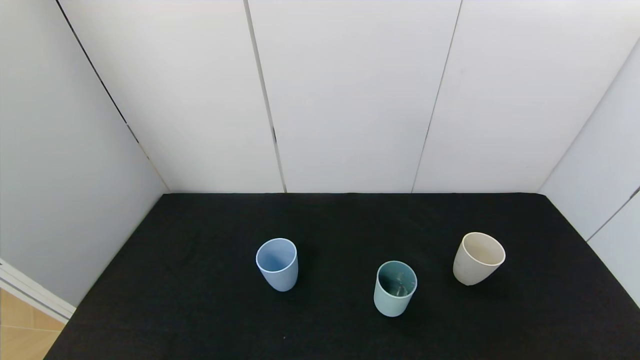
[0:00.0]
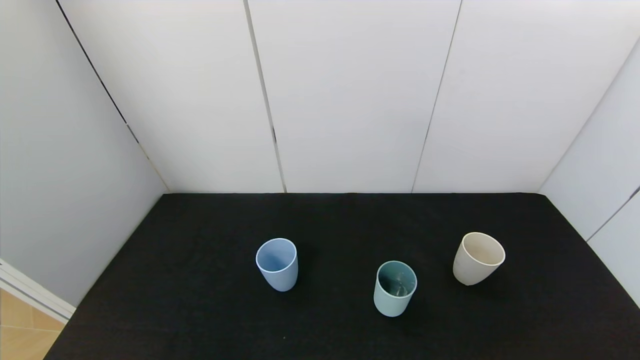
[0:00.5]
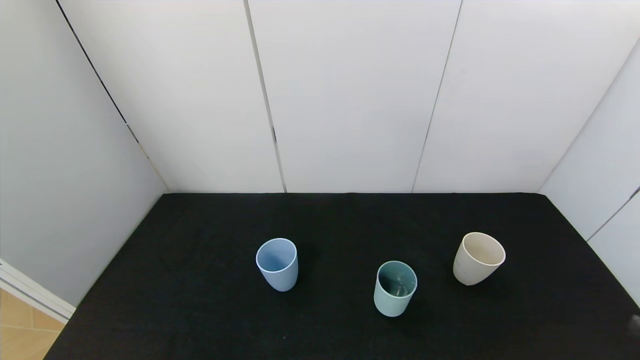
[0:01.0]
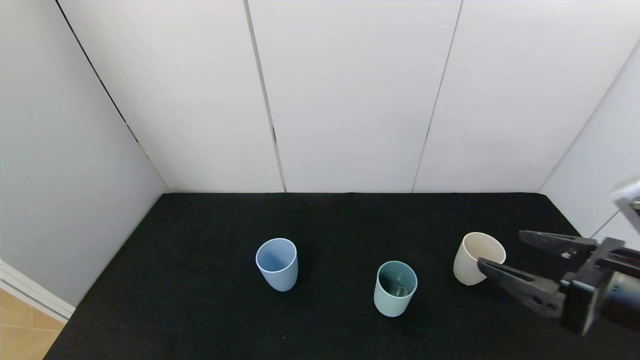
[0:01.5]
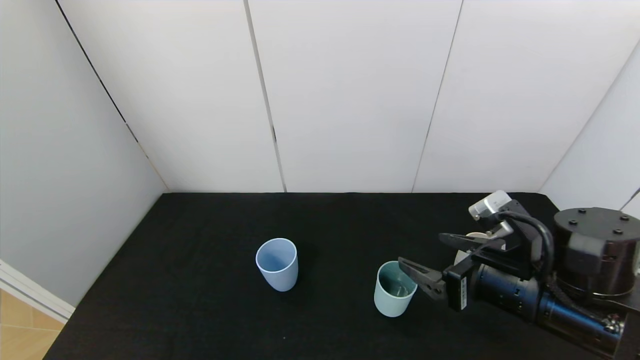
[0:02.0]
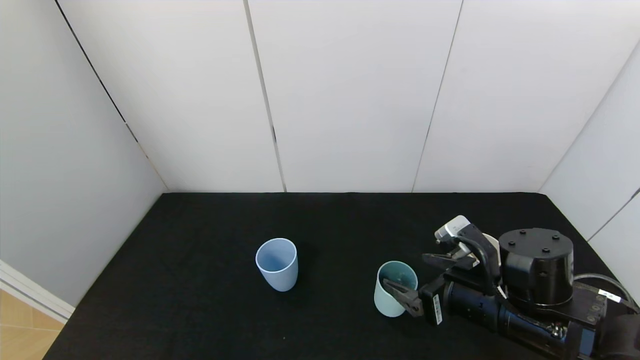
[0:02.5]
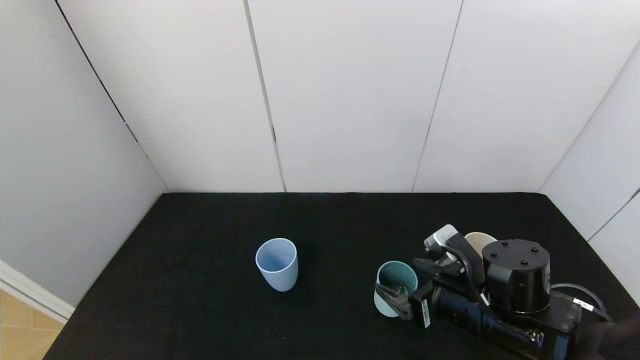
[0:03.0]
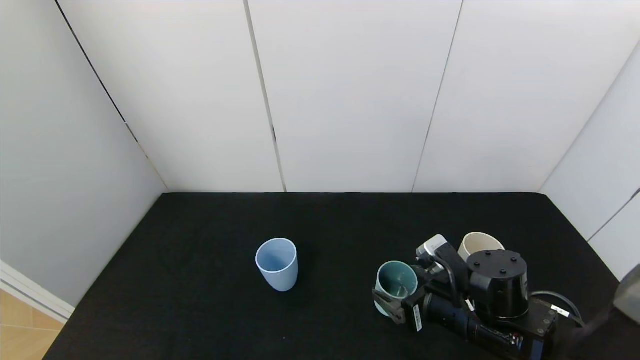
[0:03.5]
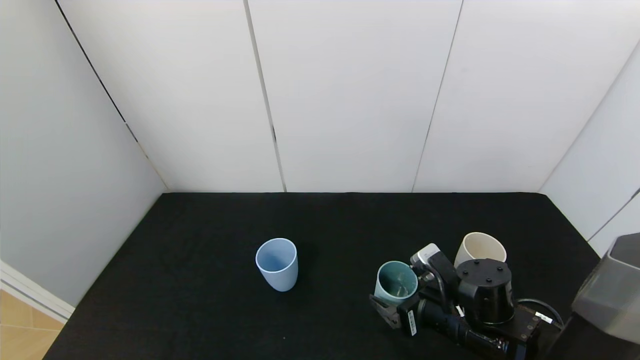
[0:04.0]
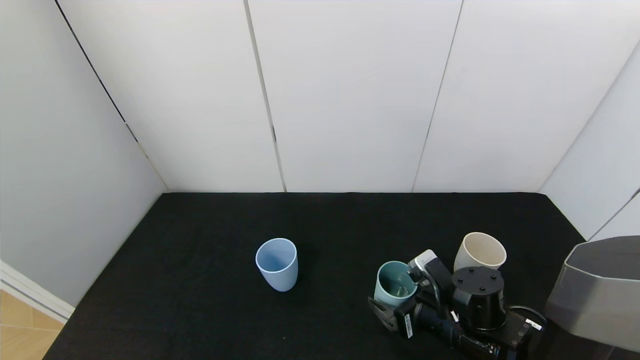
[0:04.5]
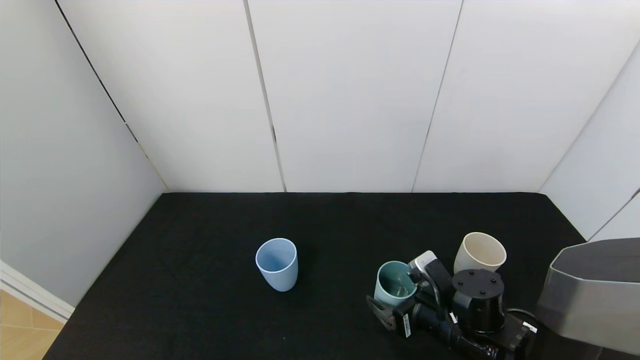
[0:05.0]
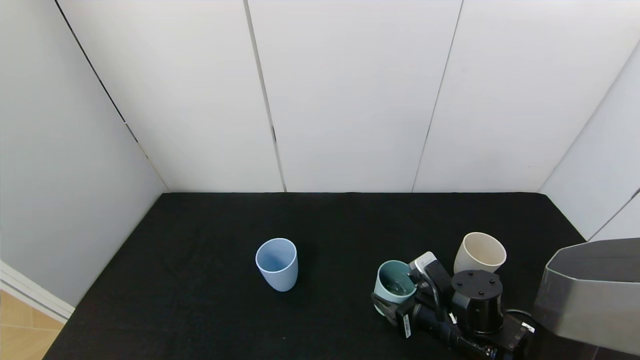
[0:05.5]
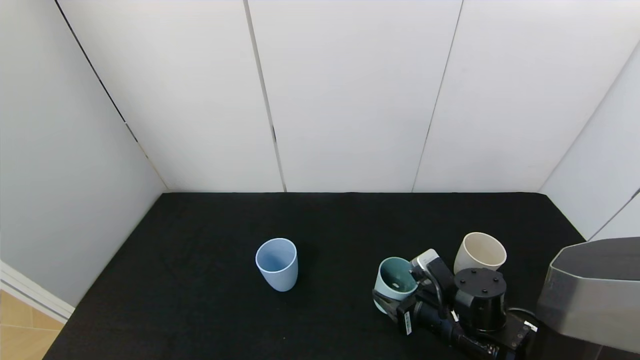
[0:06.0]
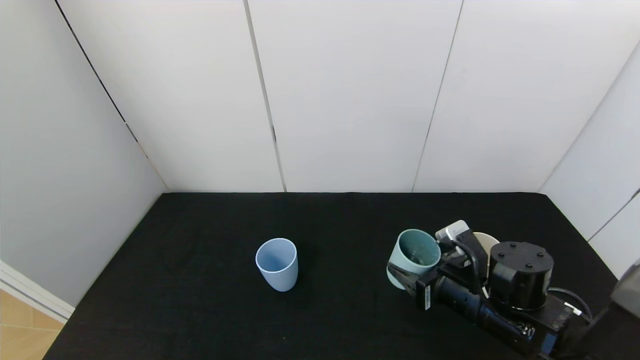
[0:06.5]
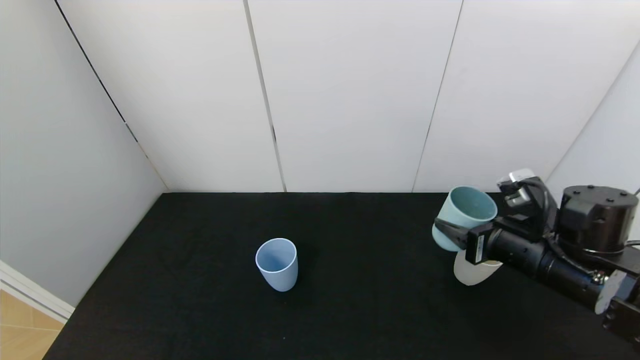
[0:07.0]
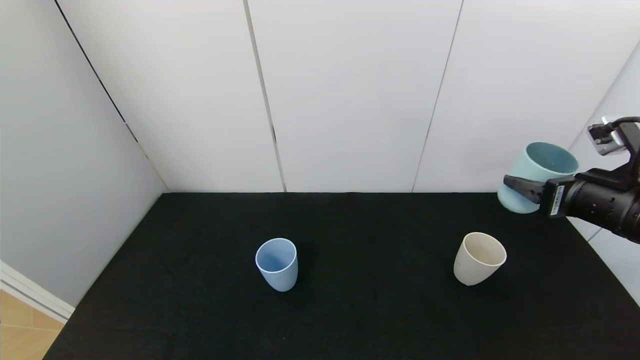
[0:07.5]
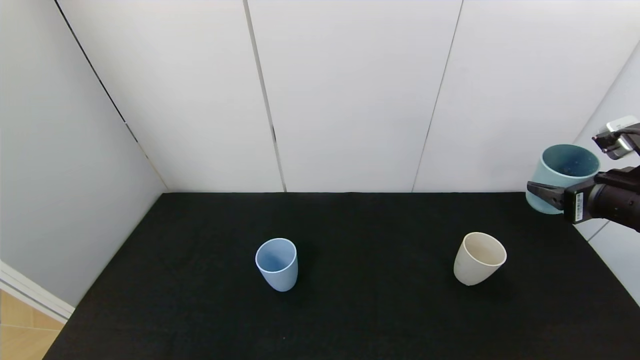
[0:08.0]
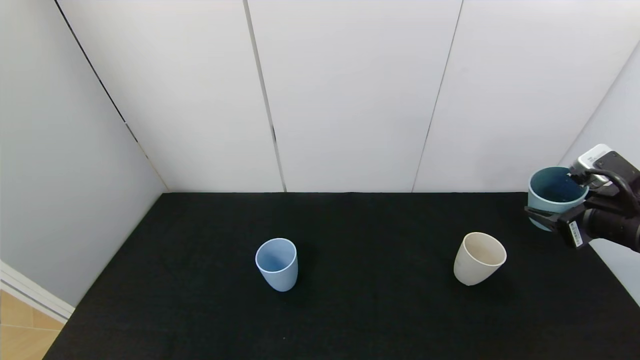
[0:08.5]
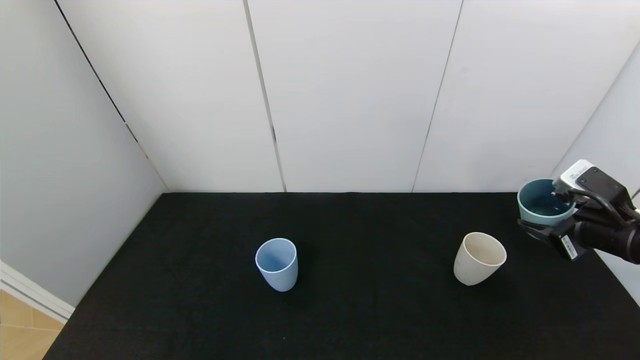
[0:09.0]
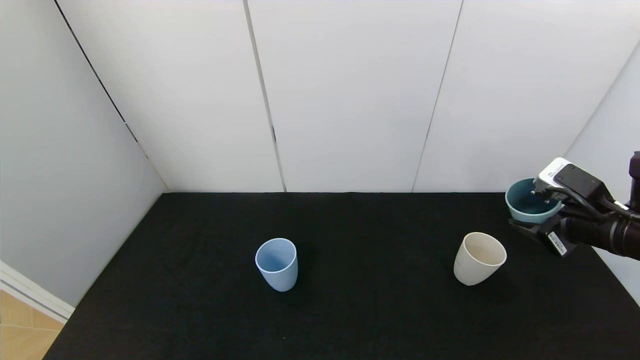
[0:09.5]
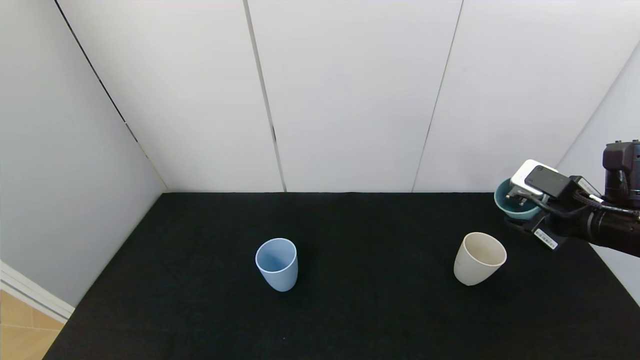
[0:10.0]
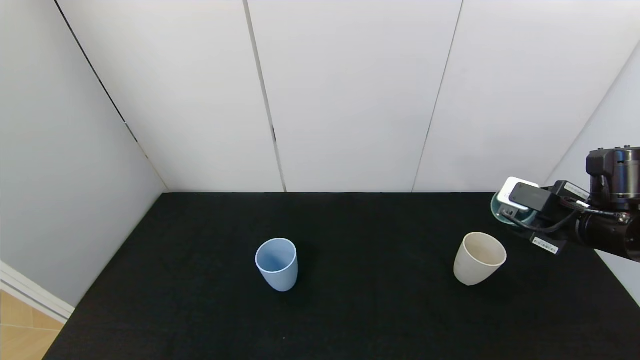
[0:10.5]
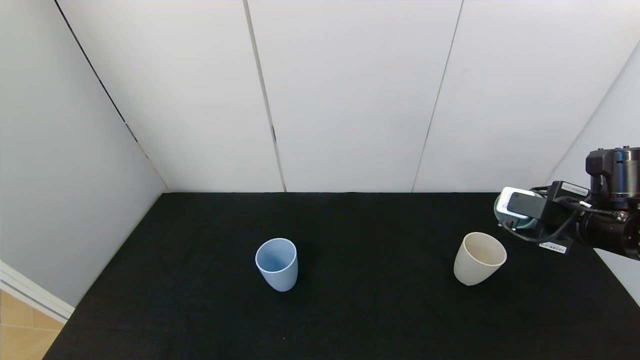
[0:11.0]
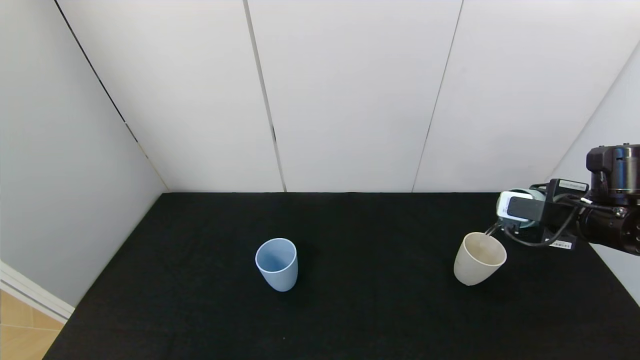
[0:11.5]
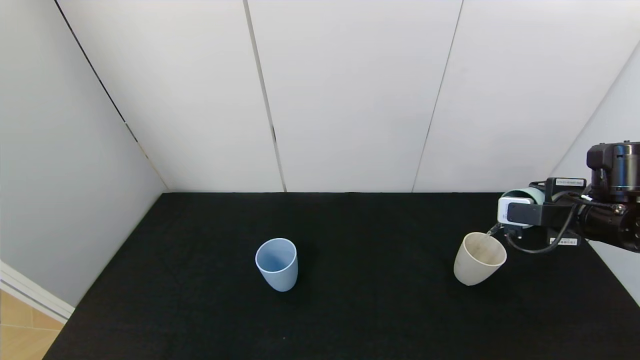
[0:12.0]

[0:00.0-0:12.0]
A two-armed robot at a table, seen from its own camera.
Task of the whole recording: use the gripper to pour the water into the other two cups on black table.
Step, 0:00.0 to 0:05.5: Grasp the green cup with the right gripper.
0:00.0 to 0:02.0: The right gripper goes approximately 30 cm forward and to the left.
0:02.0 to 0:04.0: The right gripper travels downward by approximately 10 cm.
0:04.0 to 0:06.0: The right gripper closes its fingers.
0:06.0 to 0:08.0: The right gripper heads upward and to the right, covering some 25 cm.
0:08.0 to 0:10.0: The right gripper shifts by some 5 cm.

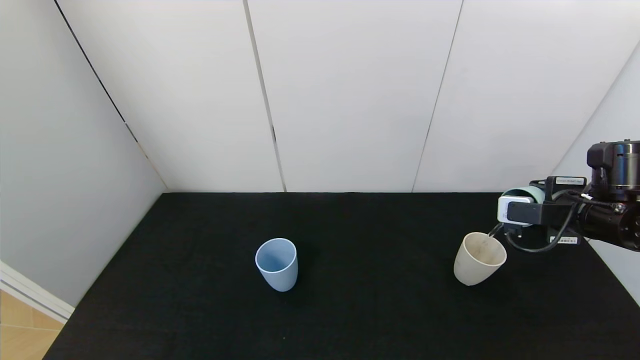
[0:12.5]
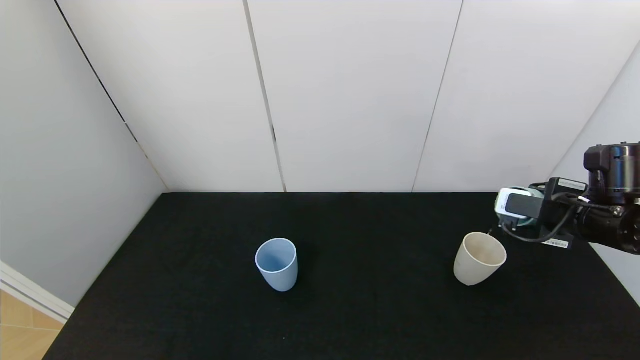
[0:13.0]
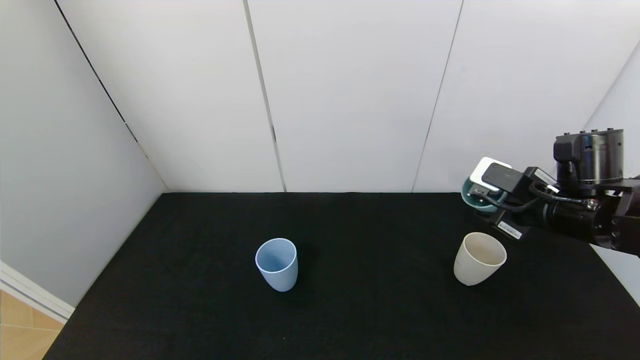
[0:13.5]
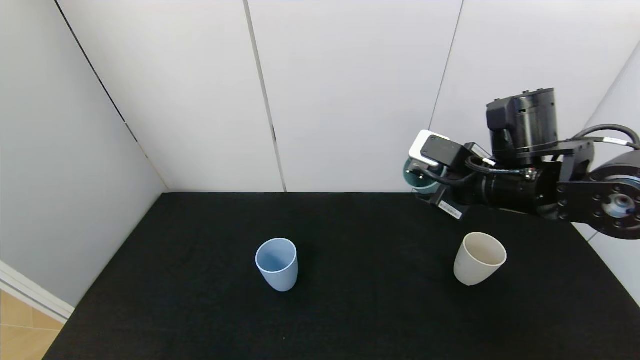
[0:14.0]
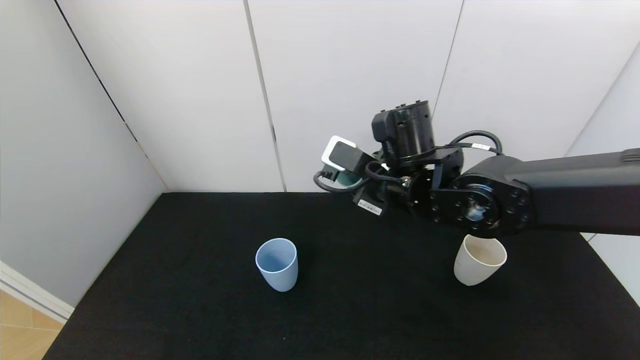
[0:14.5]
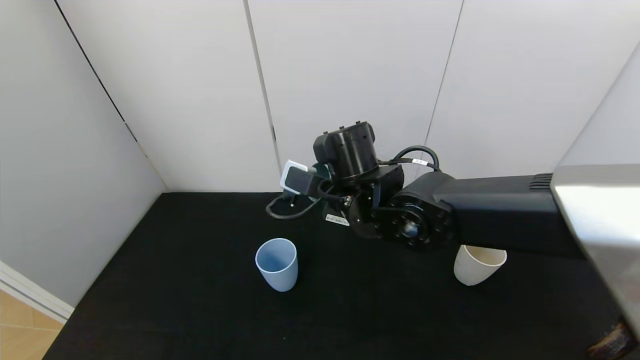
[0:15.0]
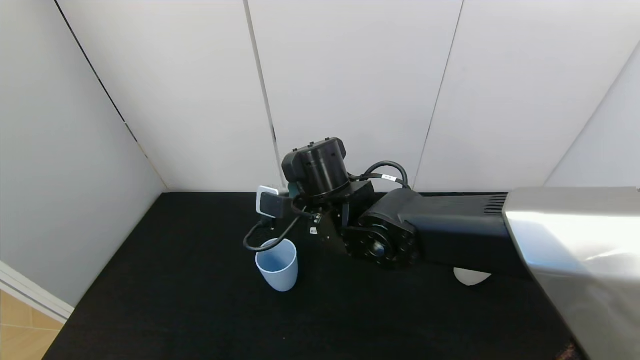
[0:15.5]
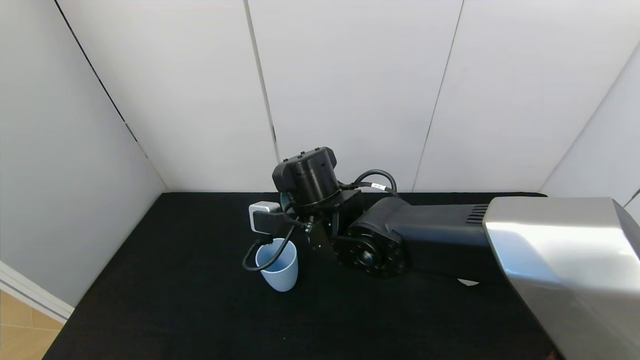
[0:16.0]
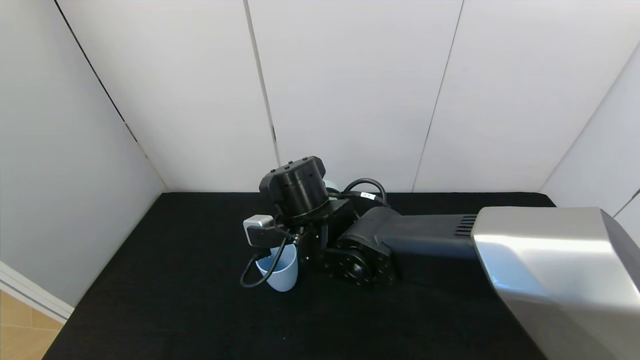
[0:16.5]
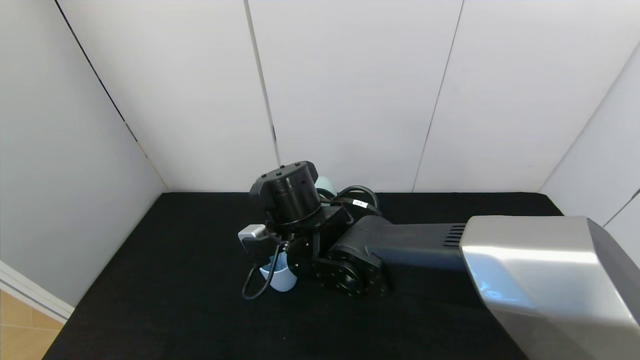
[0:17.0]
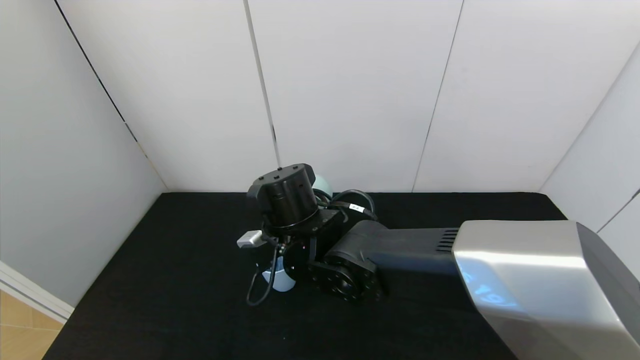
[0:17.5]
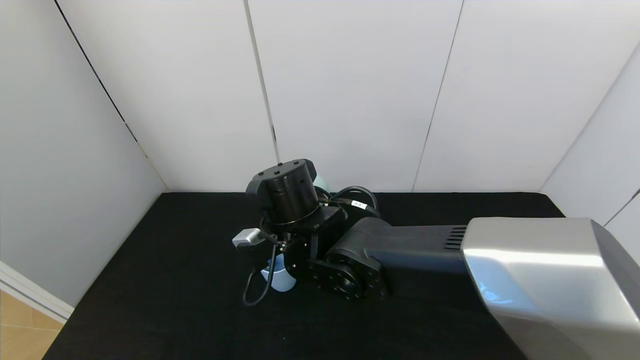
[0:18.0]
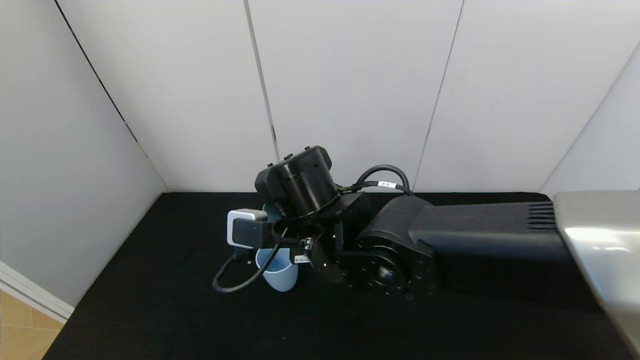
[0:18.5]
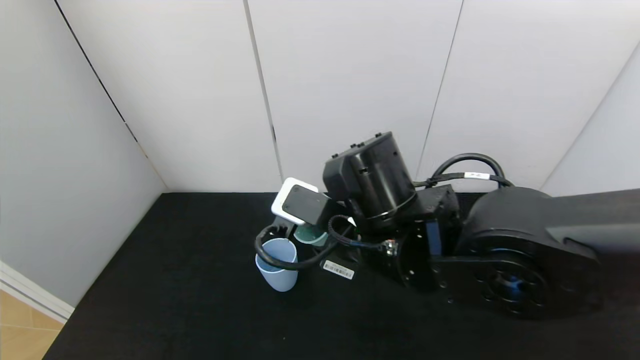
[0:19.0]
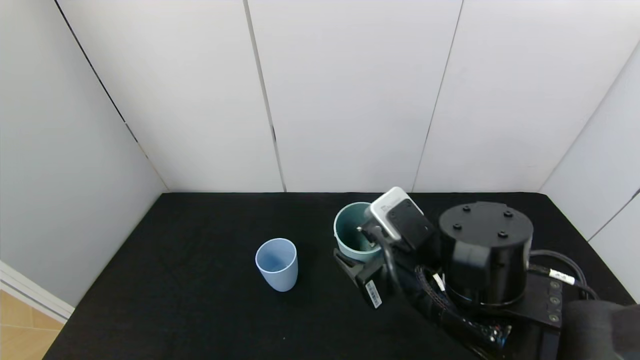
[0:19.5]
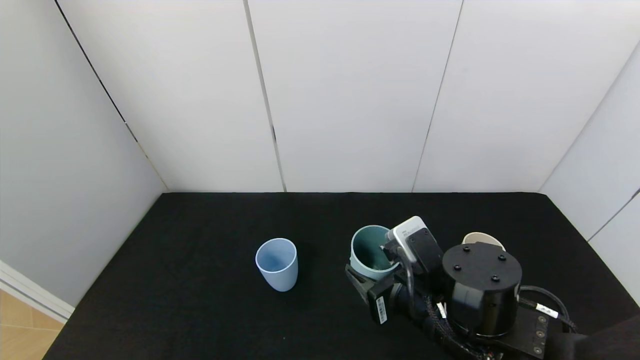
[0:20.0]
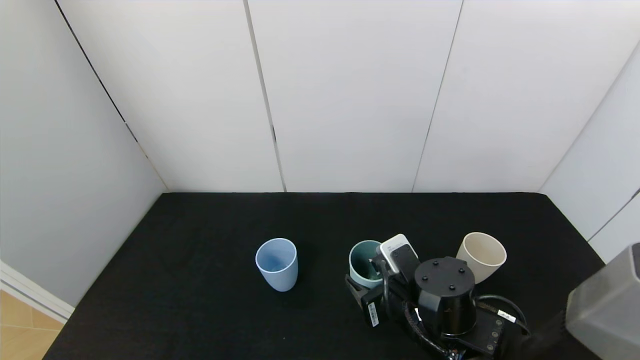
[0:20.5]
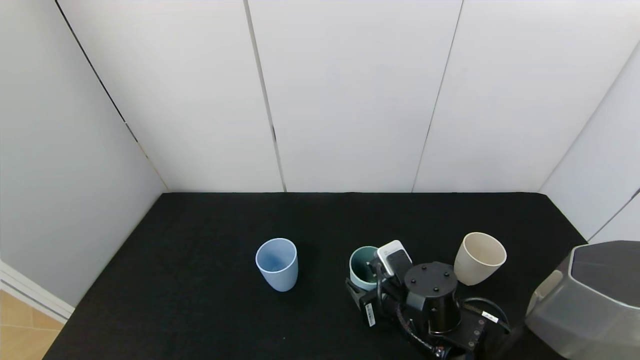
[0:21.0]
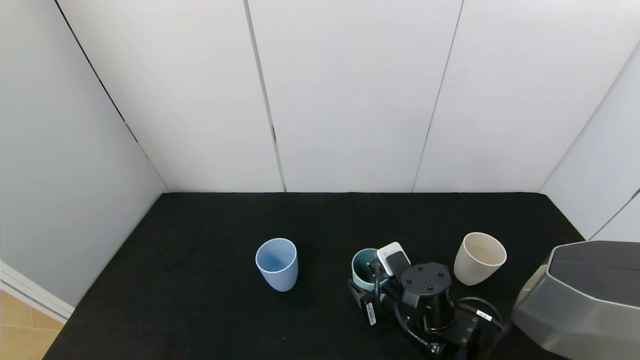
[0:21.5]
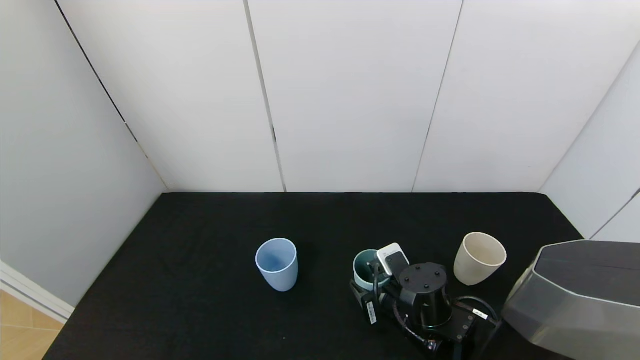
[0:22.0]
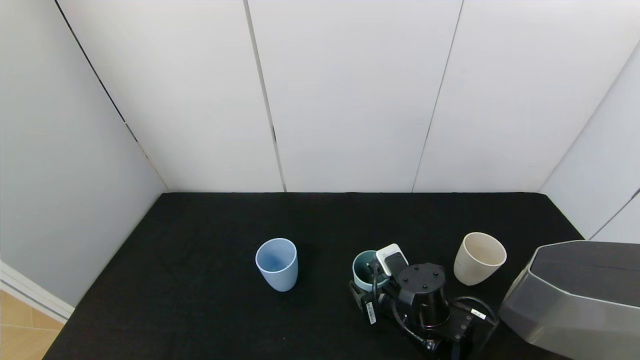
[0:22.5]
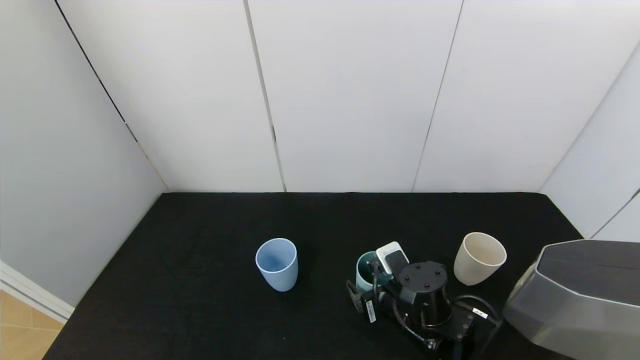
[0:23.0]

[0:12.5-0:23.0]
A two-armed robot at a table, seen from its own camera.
Task of the whole recording: use the gripper to pour the water into the other two cups on black table.
Step, 0:13.5 to 0:18.0: Pour water from green cup to blue cup with the right gripper.
0:12.5 to 0:14.5: The right gripper is displaced to the left by approximately 25 cm.
0:14.5 to 0:16.5: The right gripper is displaced to the left and downward by roughly 10 cm.
0:16.5 to 0:19.0: The right gripper heads to the right and backward, covering roughly 10 cm.
0:19.0 to 0:21.0: The right gripper heads downward, covering about 15 cm.
0:21.0 to 0:23.0: The right gripper opens up.
